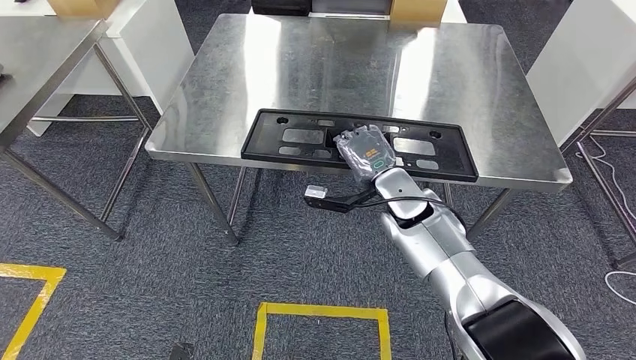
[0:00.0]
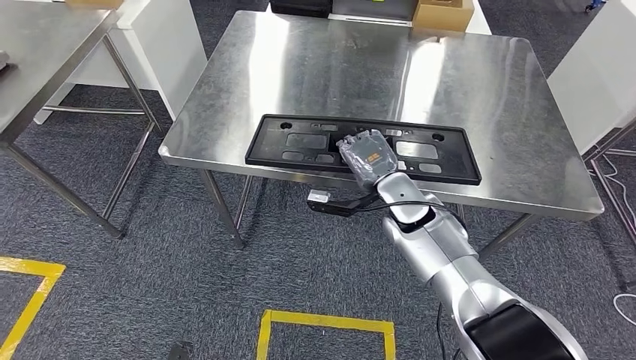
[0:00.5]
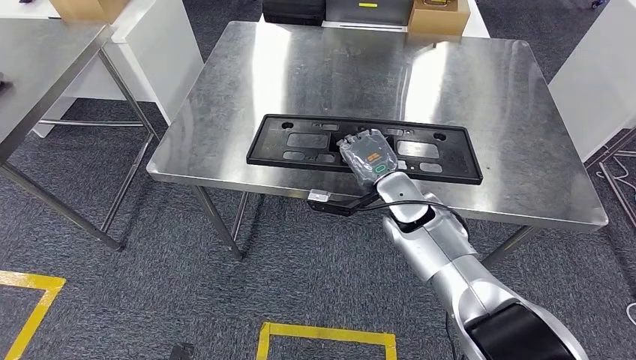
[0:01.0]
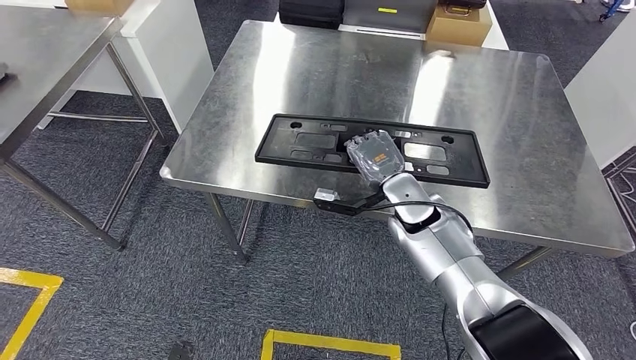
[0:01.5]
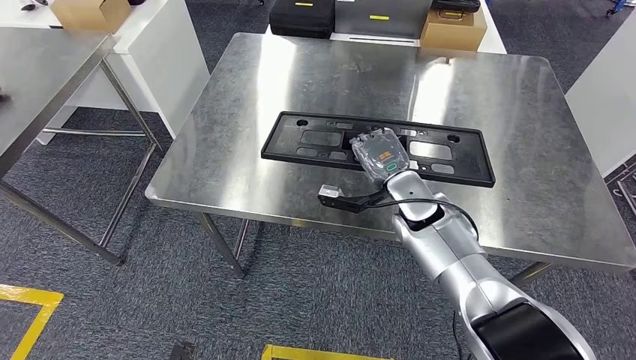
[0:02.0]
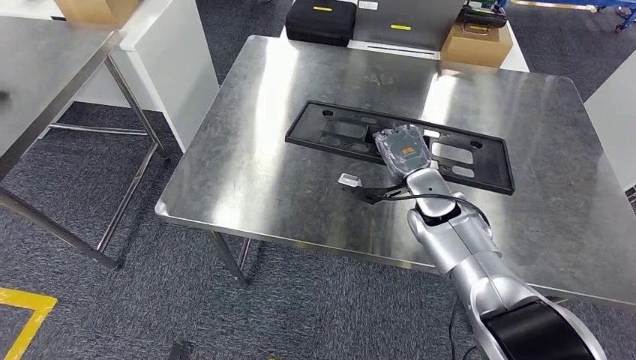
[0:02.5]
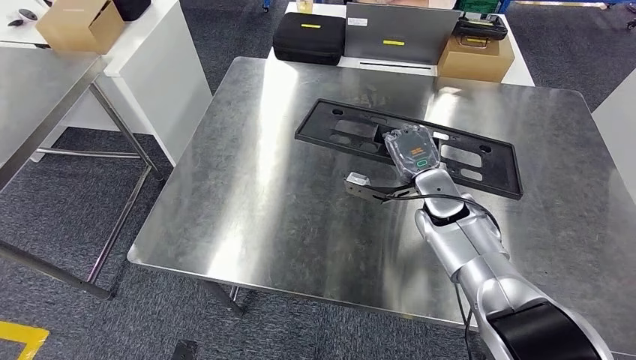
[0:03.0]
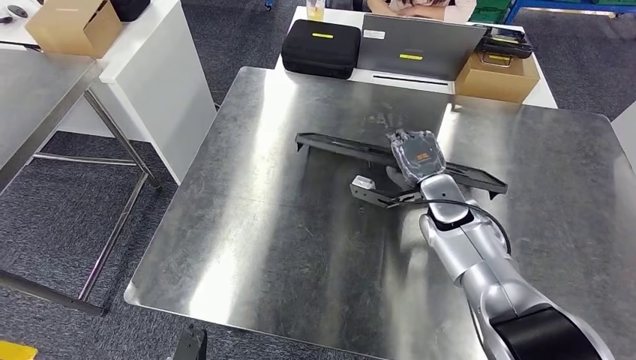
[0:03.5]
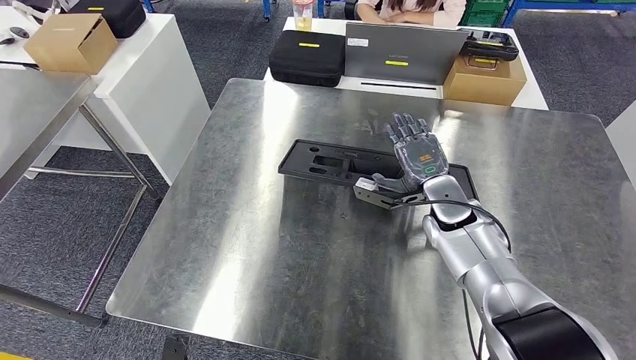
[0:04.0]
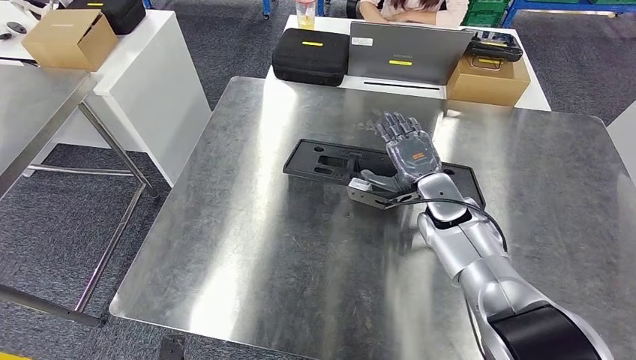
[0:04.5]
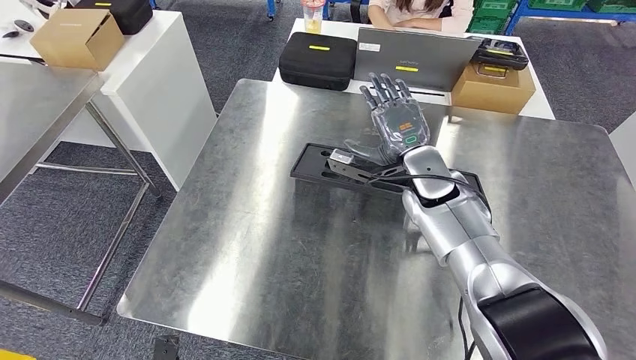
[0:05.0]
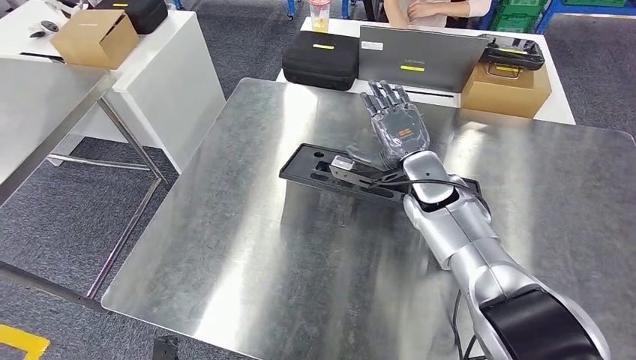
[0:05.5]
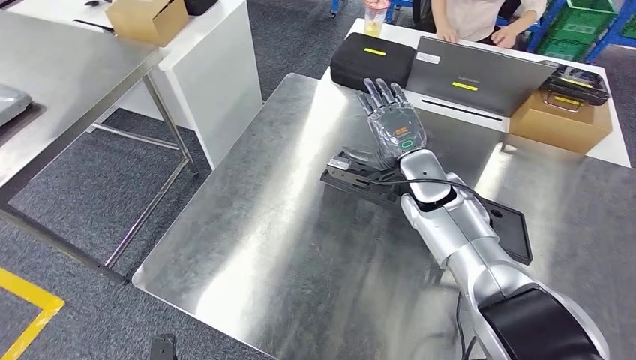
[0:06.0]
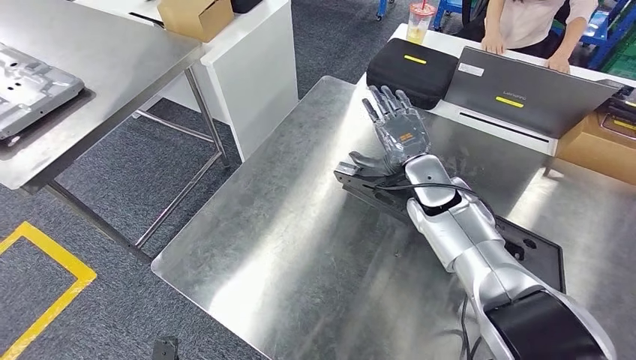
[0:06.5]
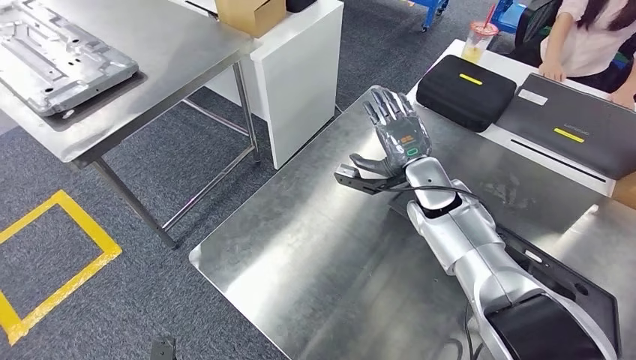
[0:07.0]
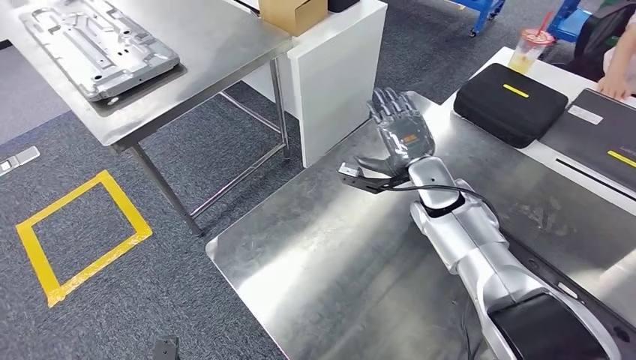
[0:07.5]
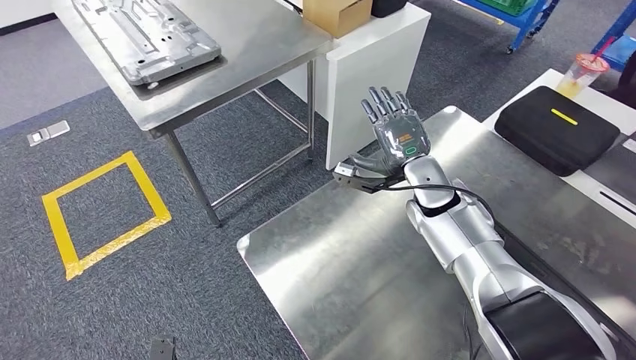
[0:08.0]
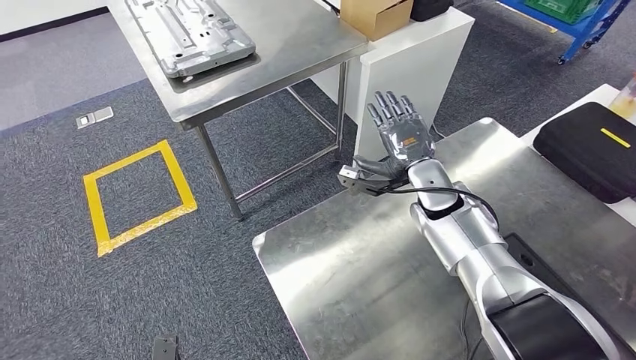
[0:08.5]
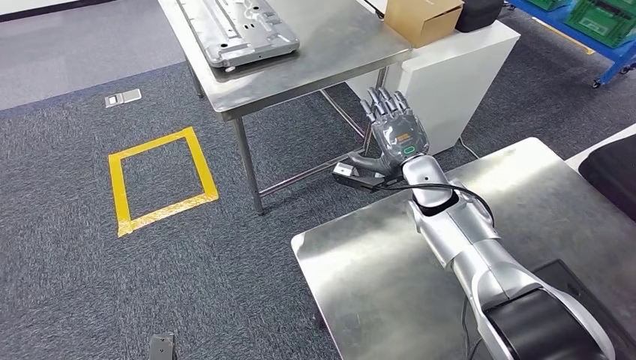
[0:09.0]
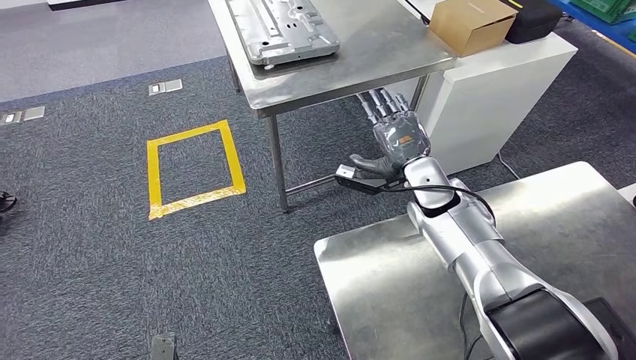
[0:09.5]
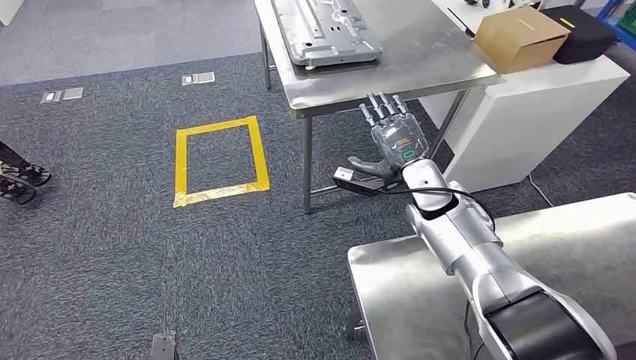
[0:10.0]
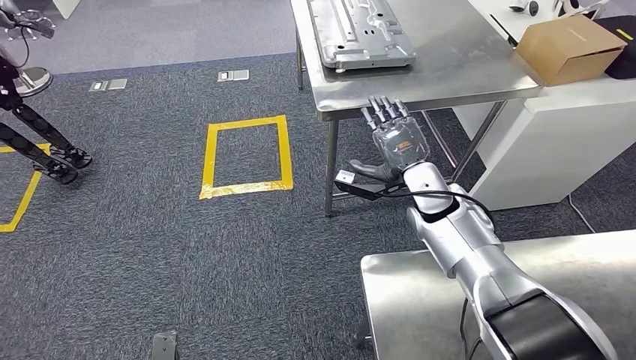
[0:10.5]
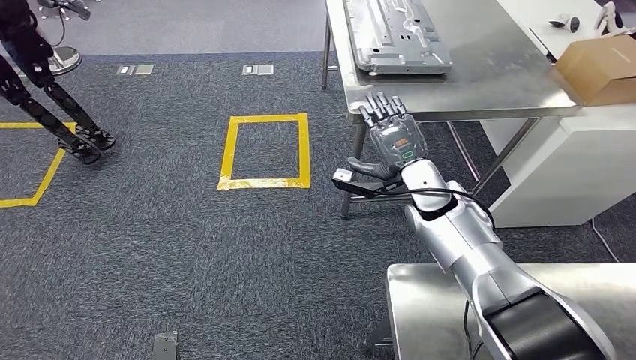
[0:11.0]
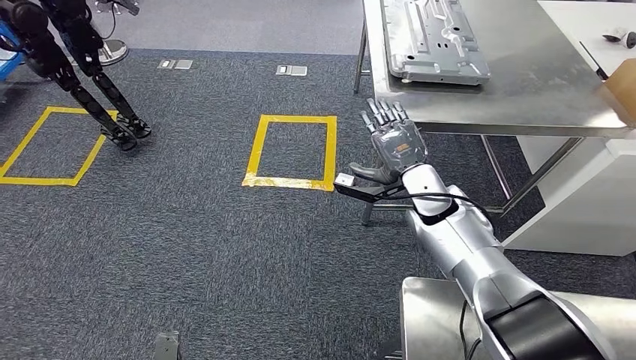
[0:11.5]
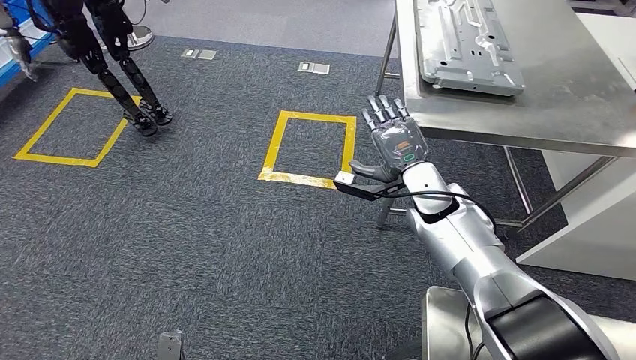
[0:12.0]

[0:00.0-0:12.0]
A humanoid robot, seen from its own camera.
Step, 0:00.5 to 0:11.5: Insert the large material into the corresponding slot on the workbench.

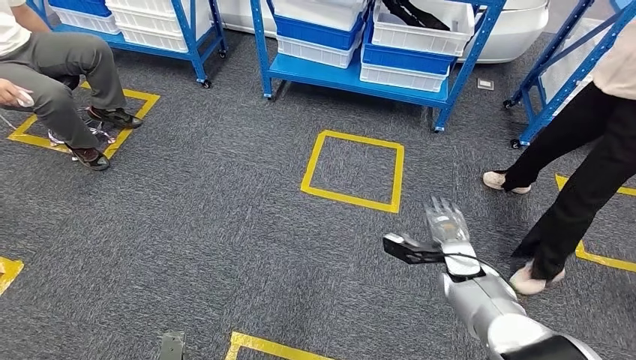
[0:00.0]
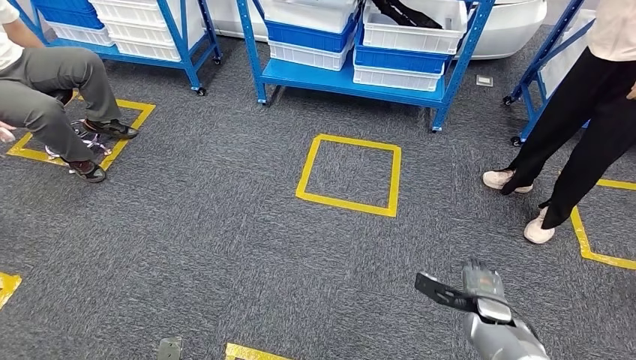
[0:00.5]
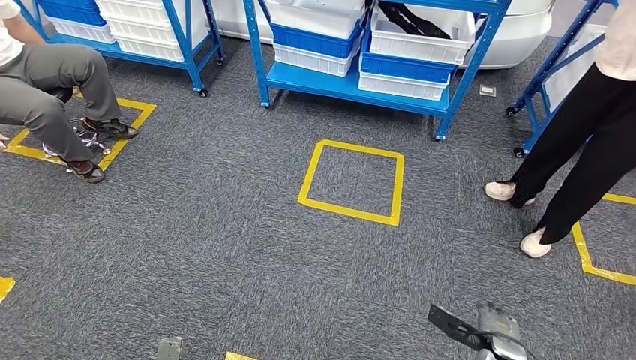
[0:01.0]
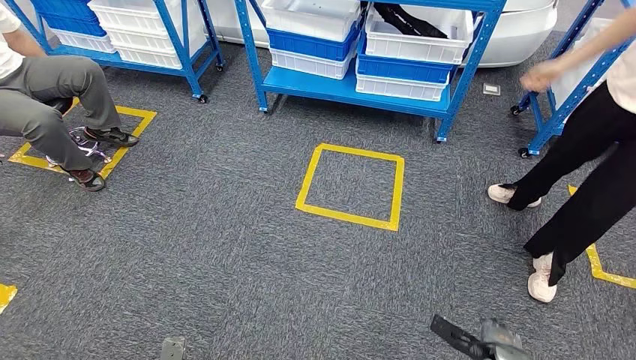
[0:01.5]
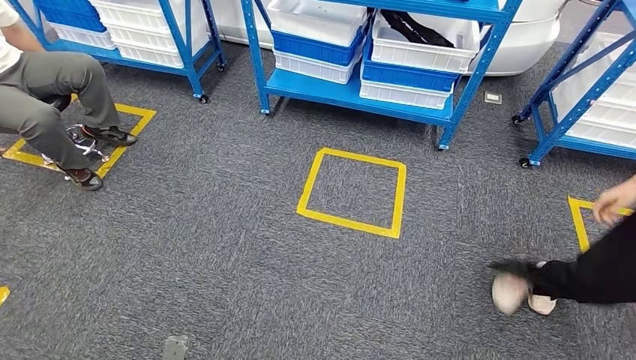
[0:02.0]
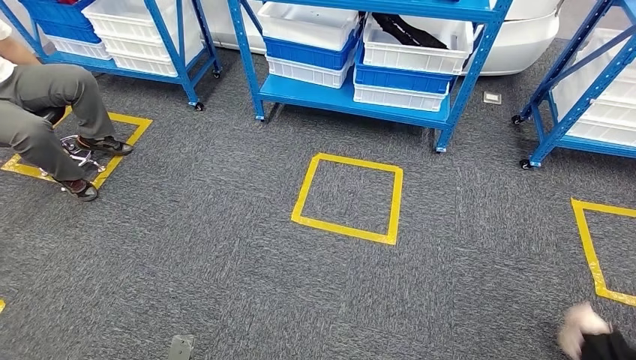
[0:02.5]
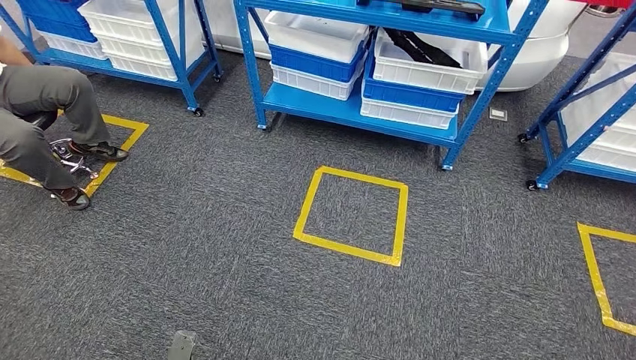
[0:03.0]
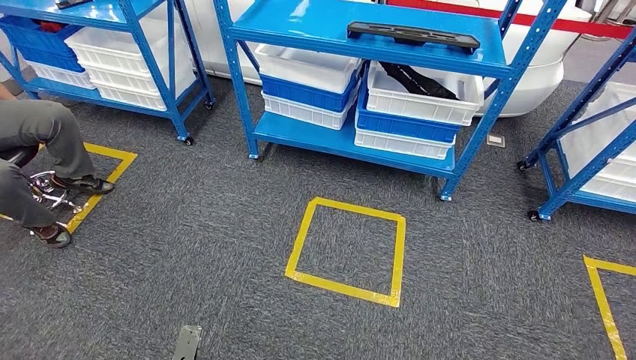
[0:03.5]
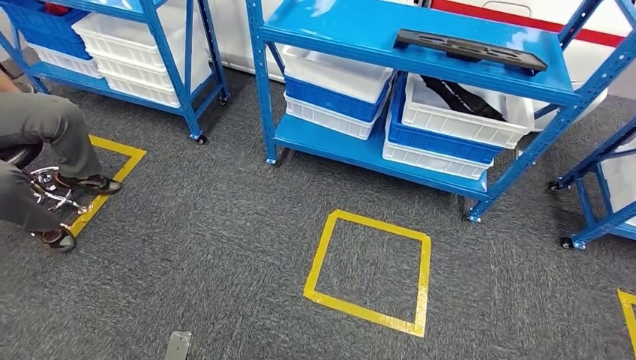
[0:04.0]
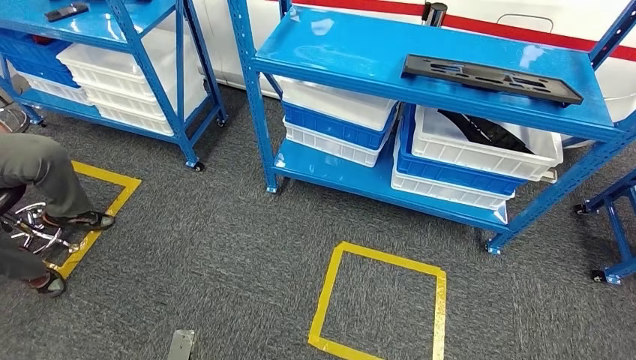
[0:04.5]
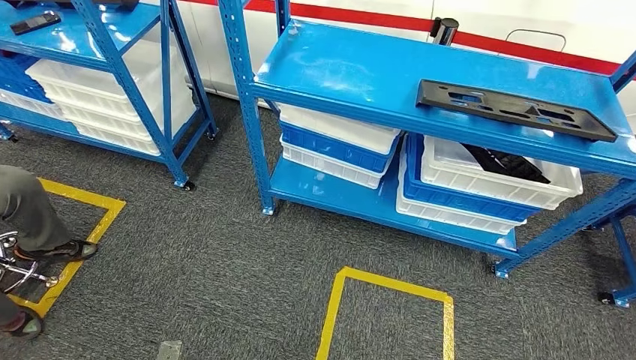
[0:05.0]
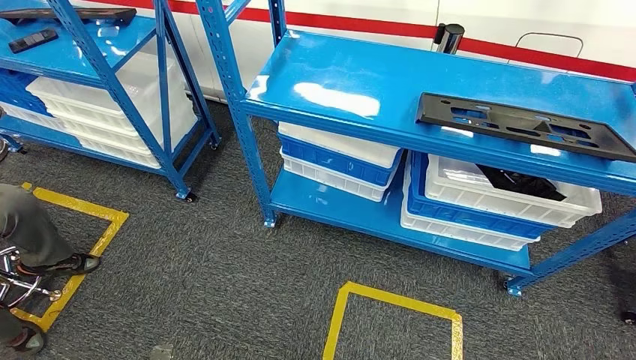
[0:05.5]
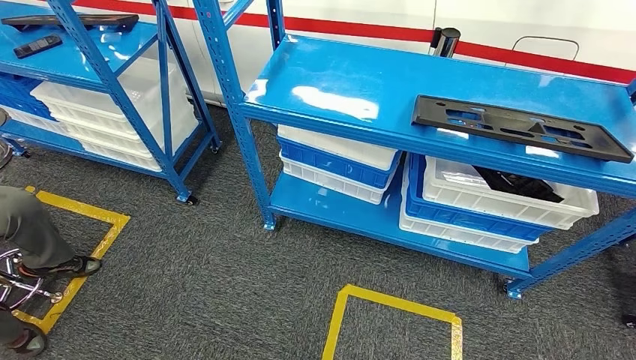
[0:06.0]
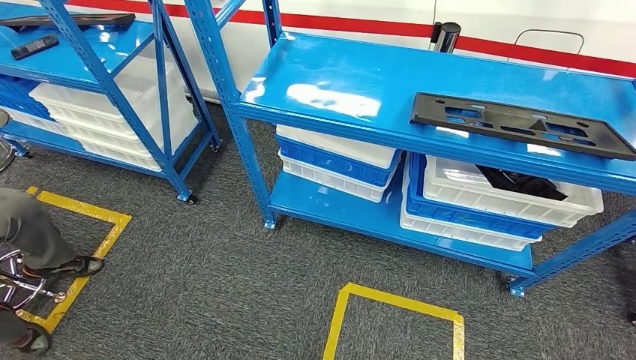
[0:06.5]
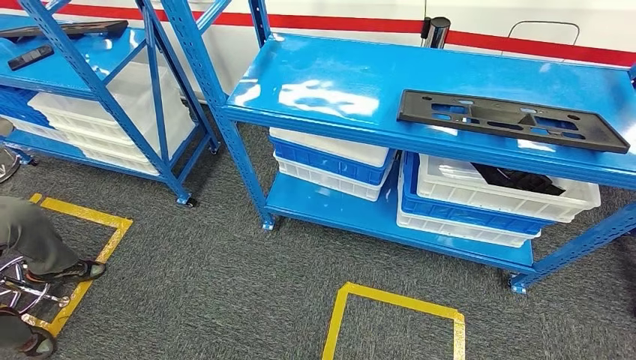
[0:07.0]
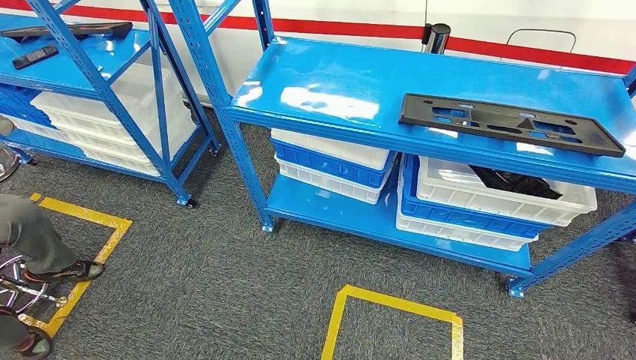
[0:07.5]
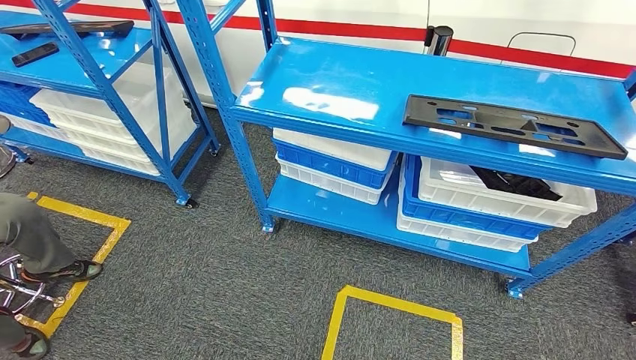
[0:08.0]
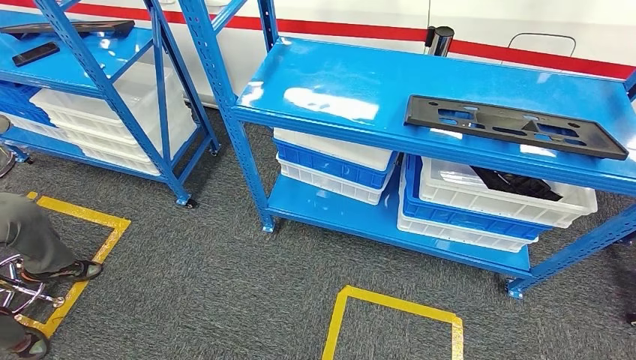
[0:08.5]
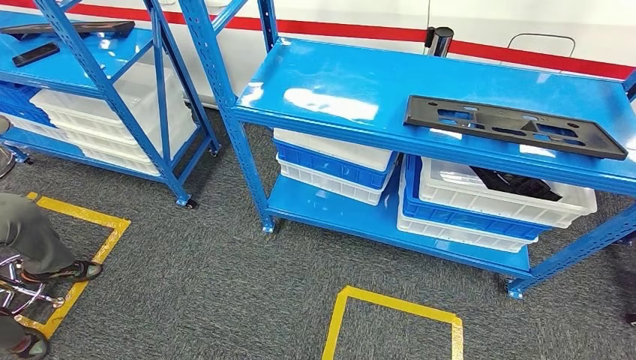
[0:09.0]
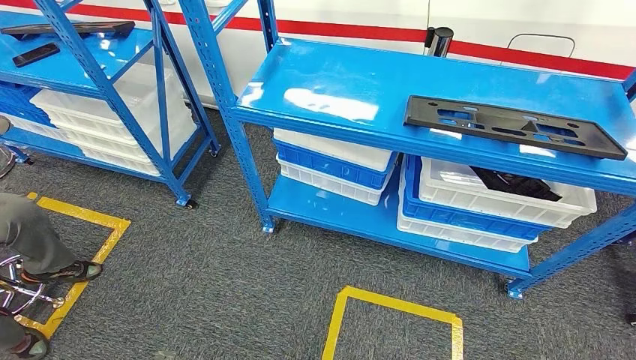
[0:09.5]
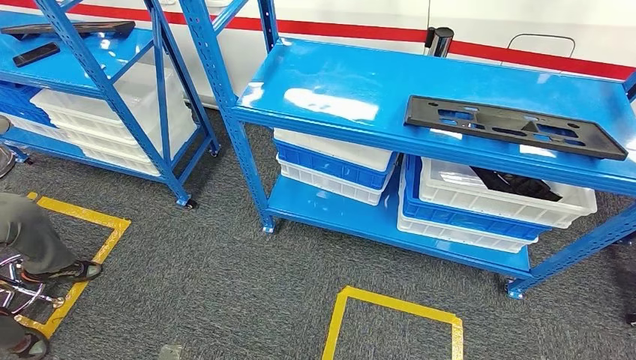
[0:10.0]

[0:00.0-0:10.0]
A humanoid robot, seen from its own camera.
Step, 0:00.0 to 0:10.0: Return to the initial position at the shelf.
0:08.0 to 0:10.0: The right hand moves forward, approximately 5 cm. Meanwhile the left hand is displaced to the right and forward by roughly 10 cm.
